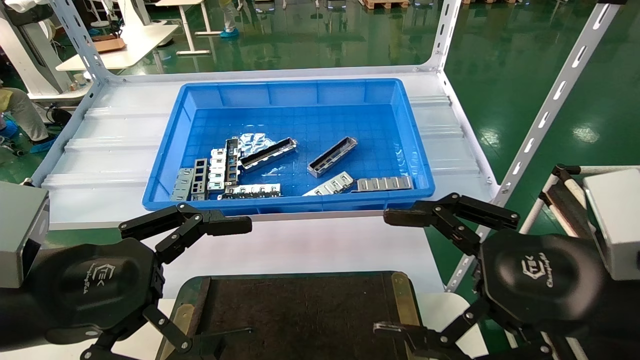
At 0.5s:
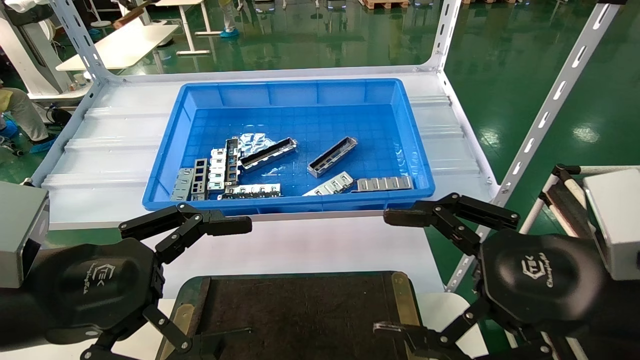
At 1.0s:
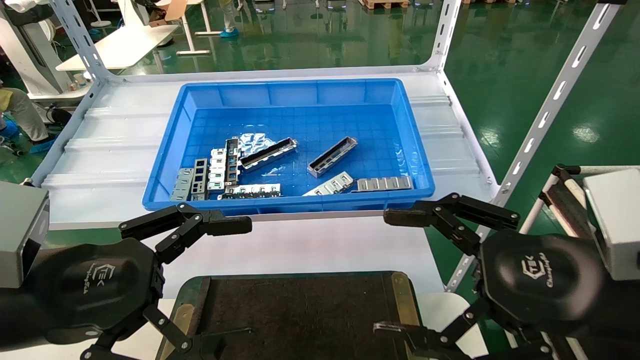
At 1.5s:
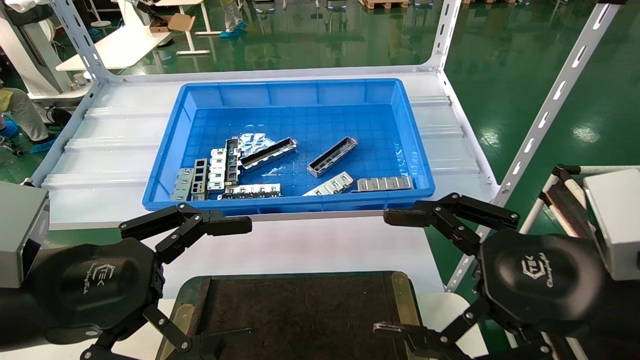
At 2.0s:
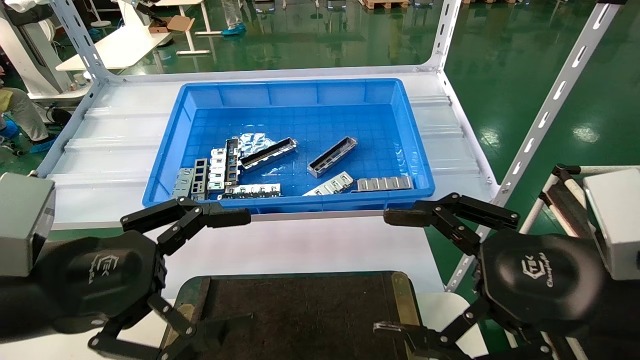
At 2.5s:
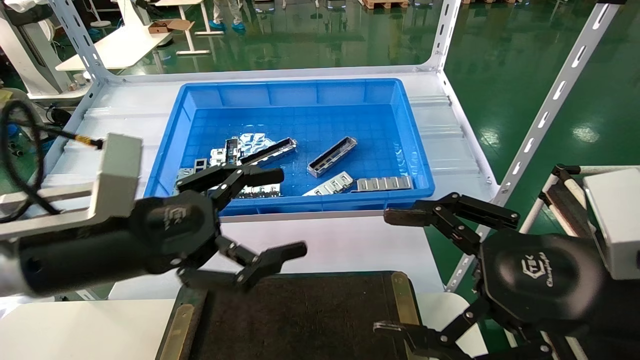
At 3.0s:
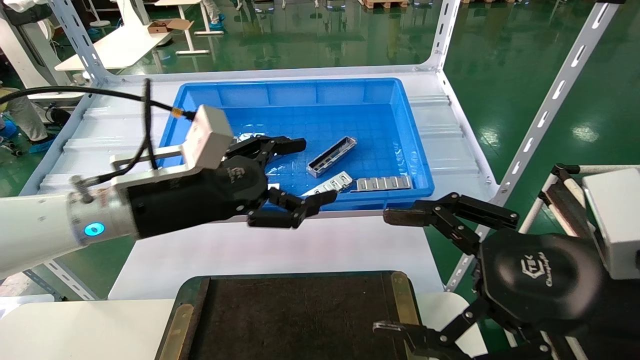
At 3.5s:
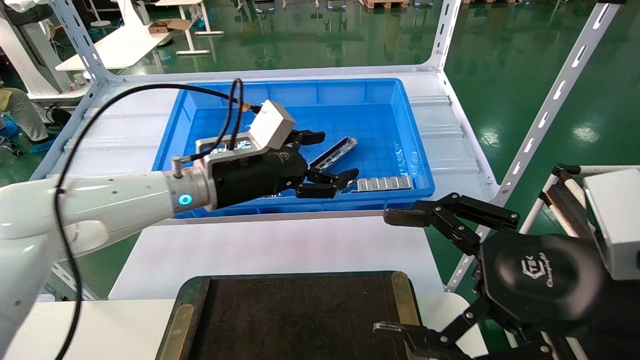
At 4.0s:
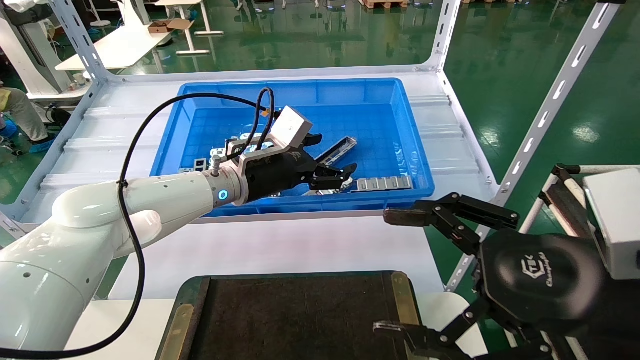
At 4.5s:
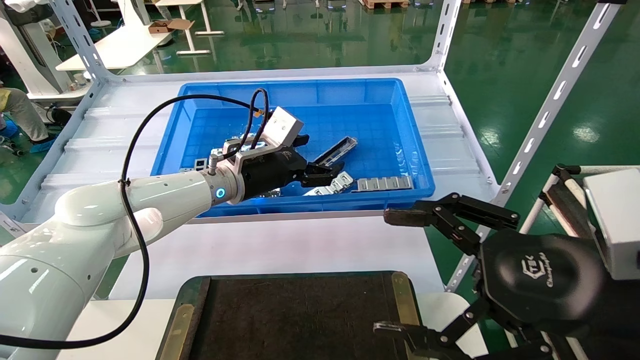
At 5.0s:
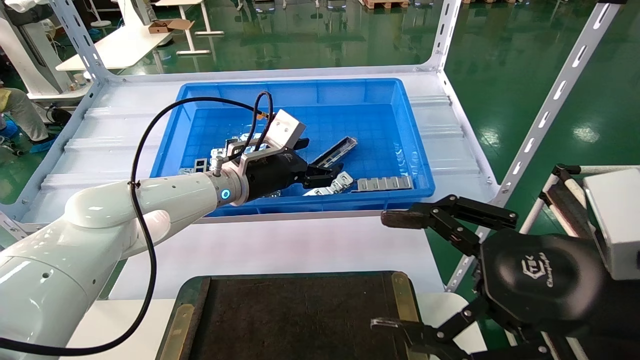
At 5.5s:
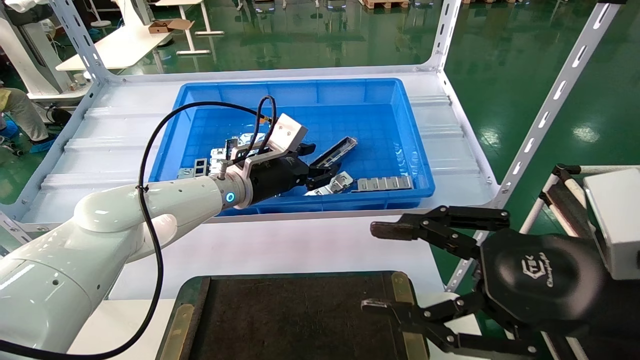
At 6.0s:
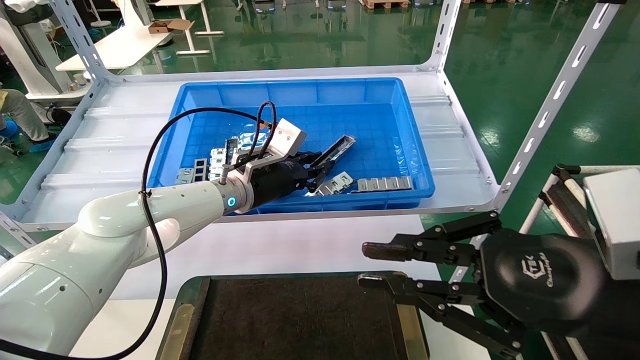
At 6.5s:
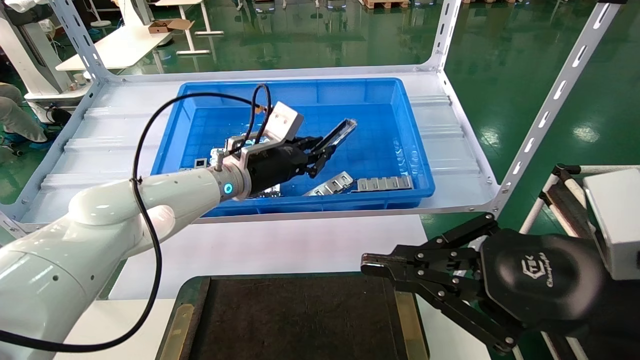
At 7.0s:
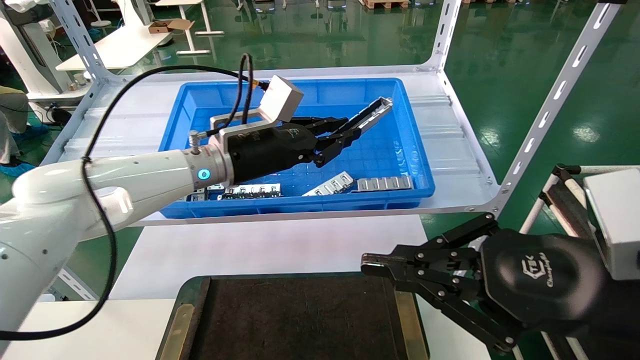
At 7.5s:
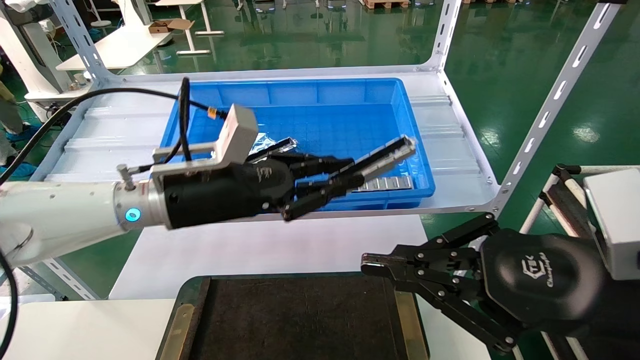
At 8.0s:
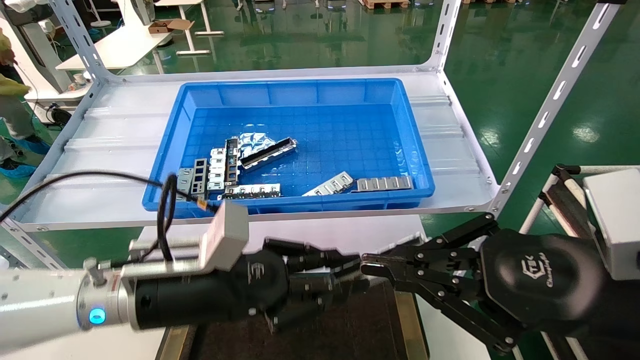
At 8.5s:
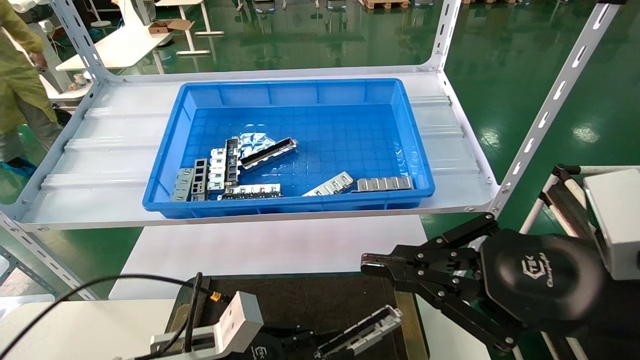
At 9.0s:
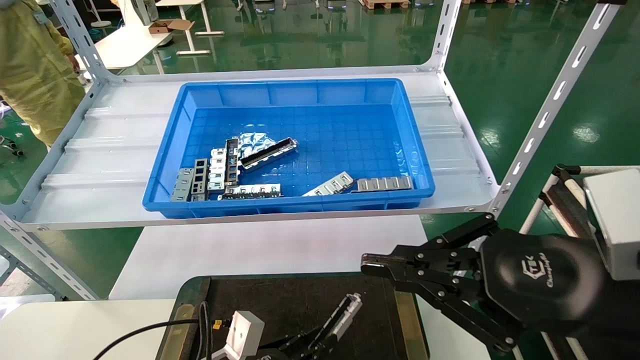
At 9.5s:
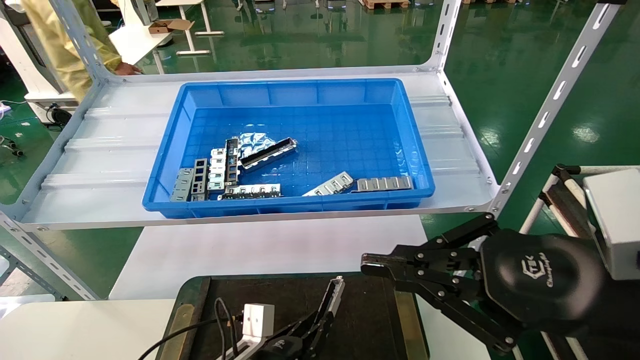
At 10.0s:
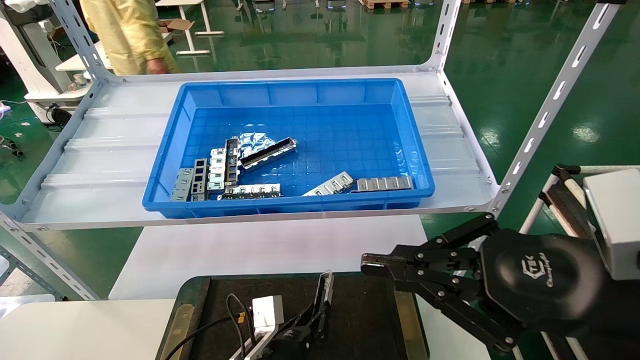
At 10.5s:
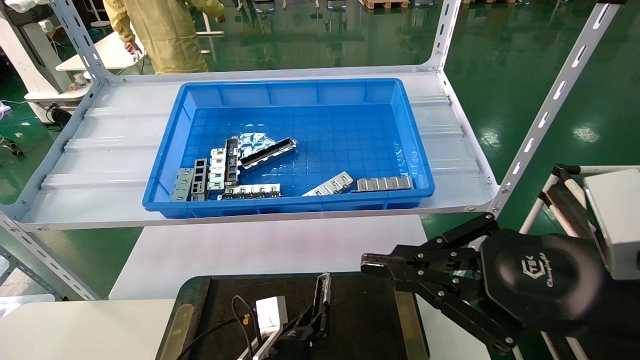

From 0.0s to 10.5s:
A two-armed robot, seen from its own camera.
Task of the whole recording: Grasp the part with one hand and place it on the black container.
Step, from 2.5s to 5.5s: Pick up the front USB bracket from the feeding area.
From 0.0s to 2.0s: Both grippers stay put.
From 2.0s to 4.0s: The left gripper goes some 30 cm forward and to the right.
From 4.0s to 6.5s: The right gripper closes, while the left gripper closes.
From 6.5s to 8.5s: The left gripper is displaced backward and downward by approximately 30 cm.
From 8.5s to 10.5s: The left gripper travels downward, to the right and forward by about 15 cm.

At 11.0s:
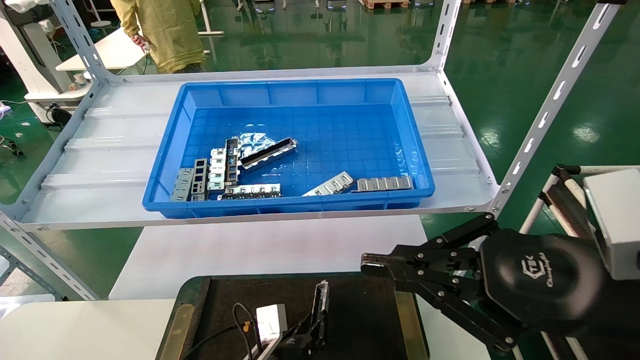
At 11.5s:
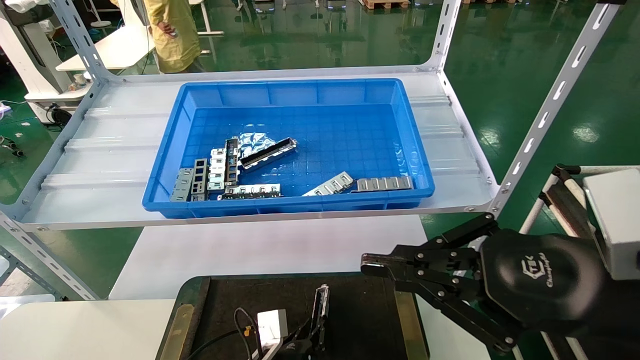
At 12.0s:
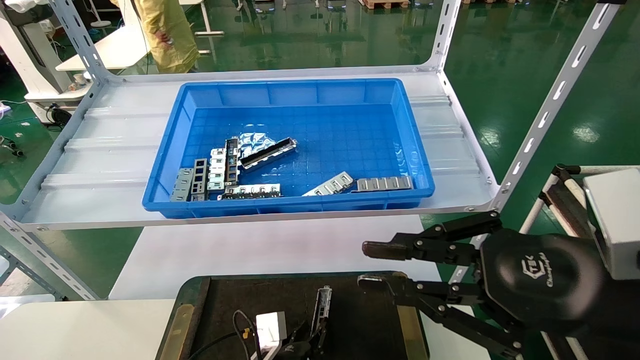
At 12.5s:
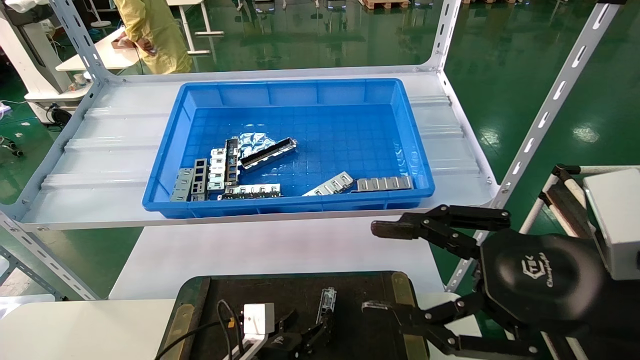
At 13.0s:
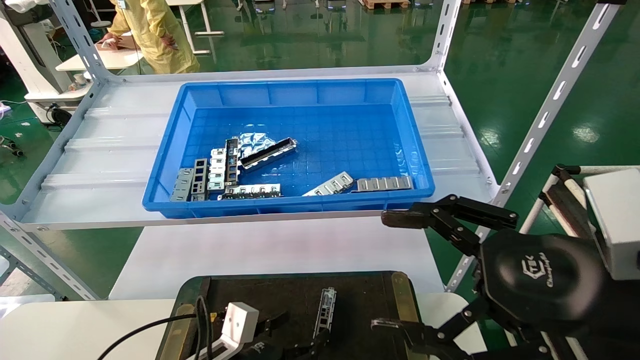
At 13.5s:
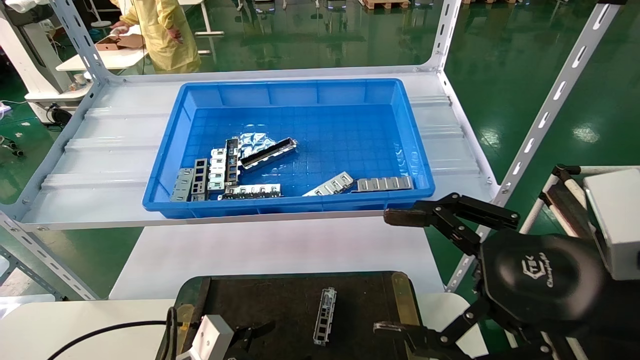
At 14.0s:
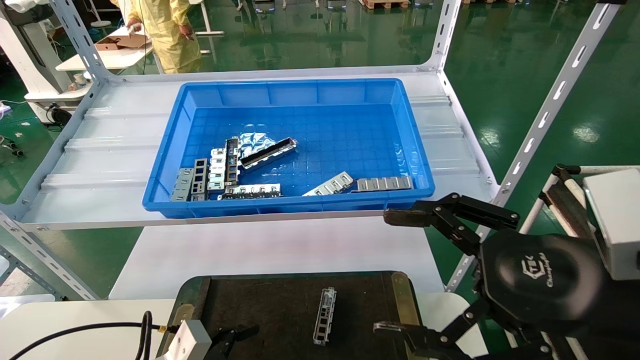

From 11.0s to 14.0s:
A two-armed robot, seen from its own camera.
Task of the whole recording: Grasp the part with one hand and place it on the black container.
From 11.0s to 12.5s: The left gripper opens its fingers; the right gripper opens up.
From 12.5s to 14.0s: The right gripper opens its fingers. Meanwhile the left gripper heads to the left and backward, covering some 15 cm, and opens.
